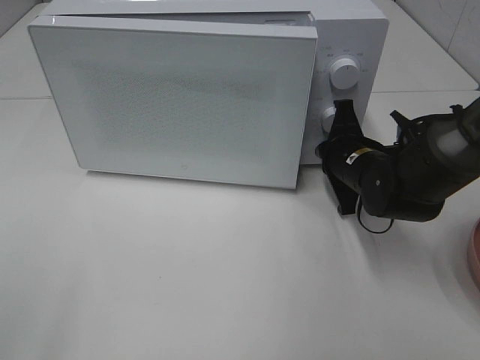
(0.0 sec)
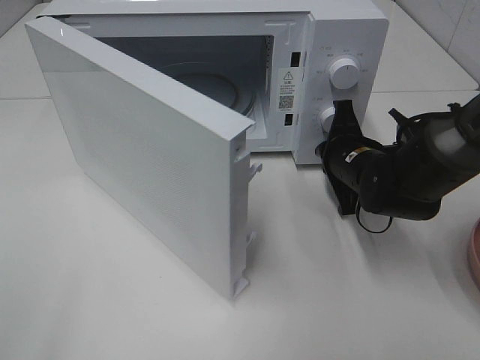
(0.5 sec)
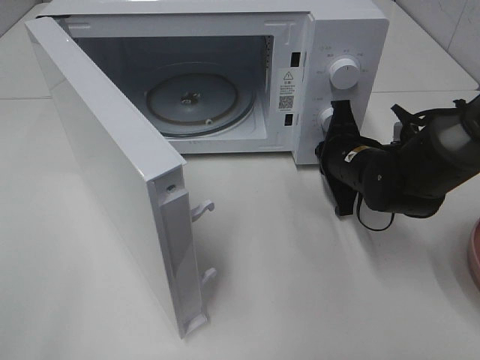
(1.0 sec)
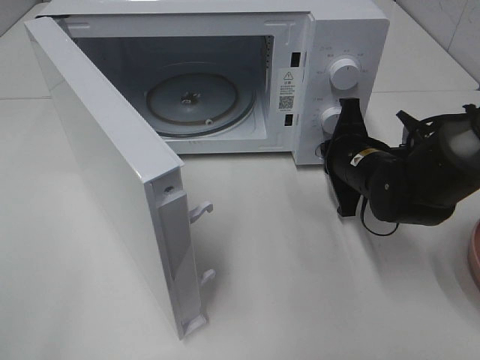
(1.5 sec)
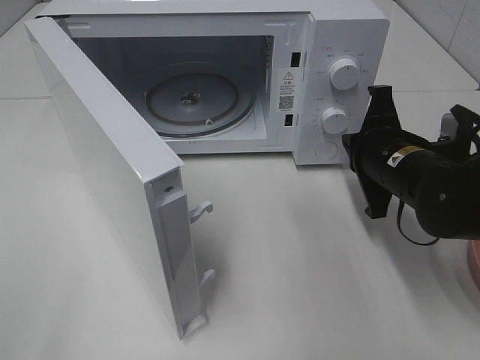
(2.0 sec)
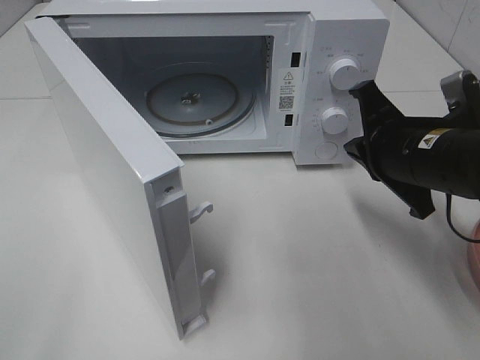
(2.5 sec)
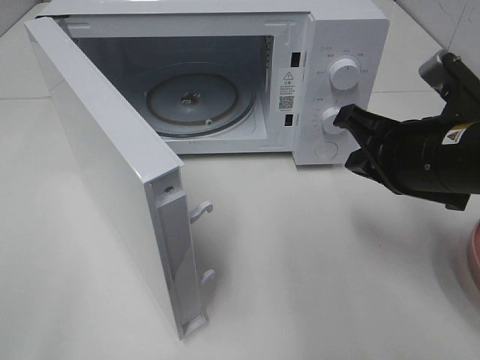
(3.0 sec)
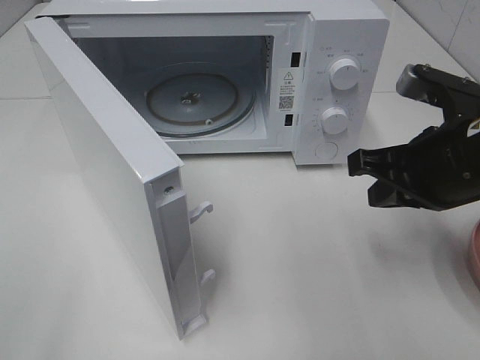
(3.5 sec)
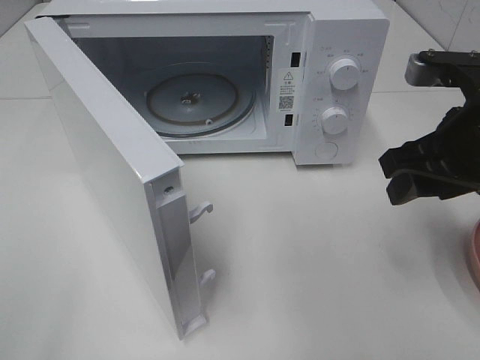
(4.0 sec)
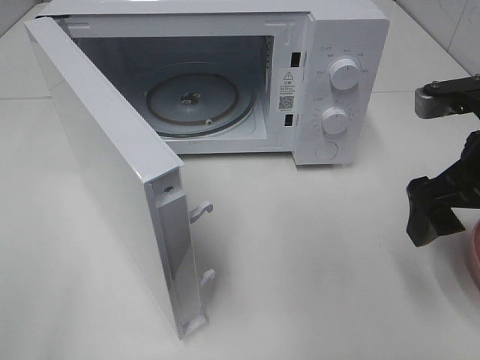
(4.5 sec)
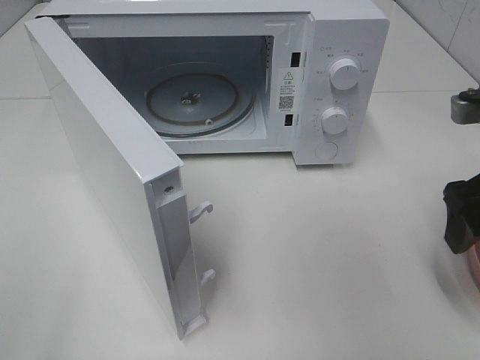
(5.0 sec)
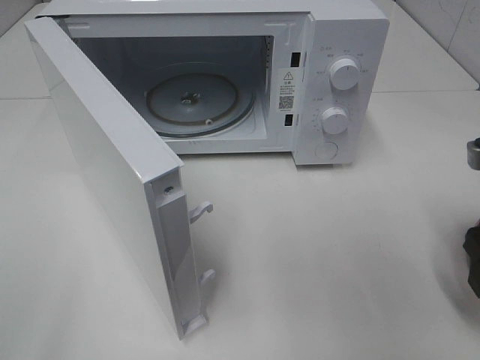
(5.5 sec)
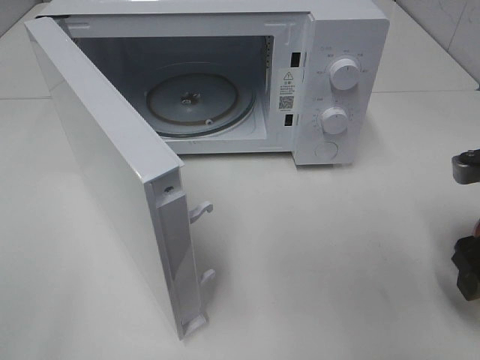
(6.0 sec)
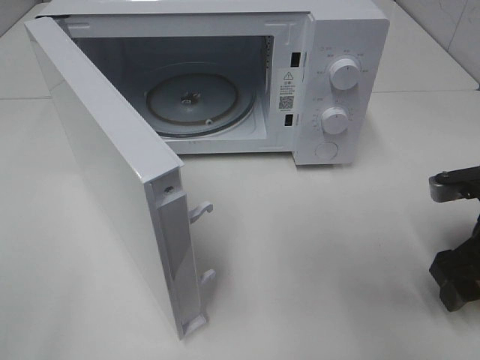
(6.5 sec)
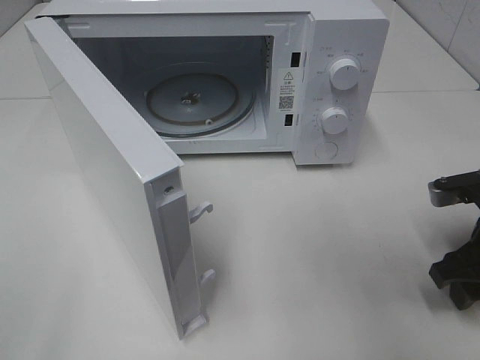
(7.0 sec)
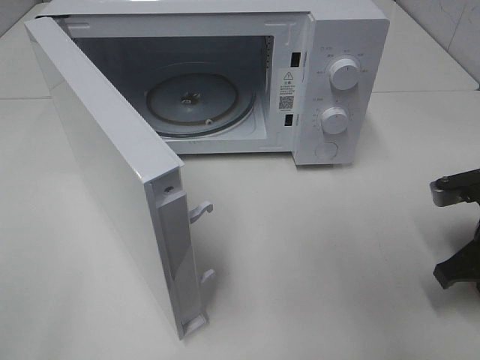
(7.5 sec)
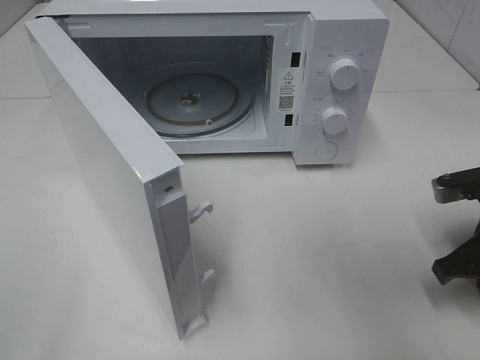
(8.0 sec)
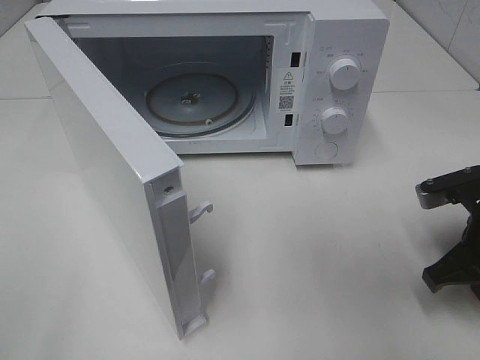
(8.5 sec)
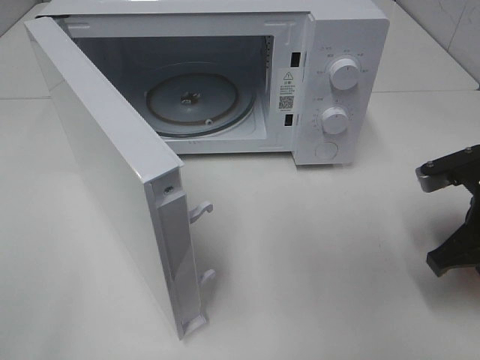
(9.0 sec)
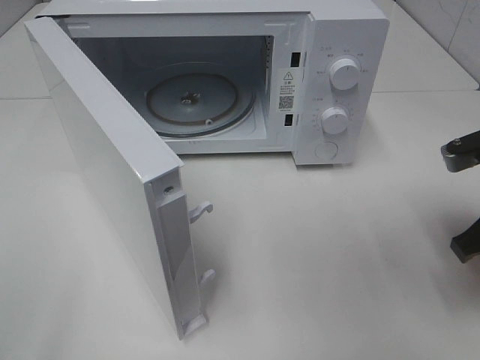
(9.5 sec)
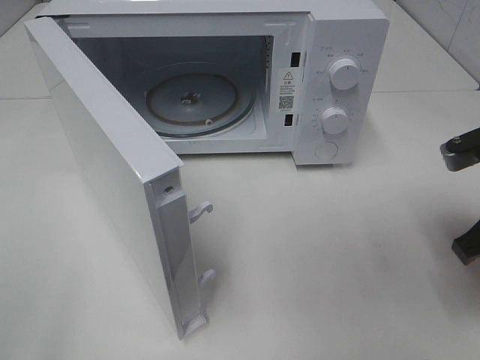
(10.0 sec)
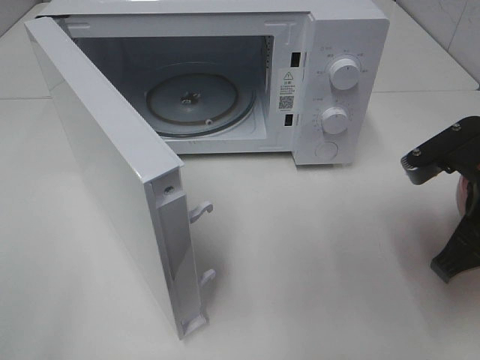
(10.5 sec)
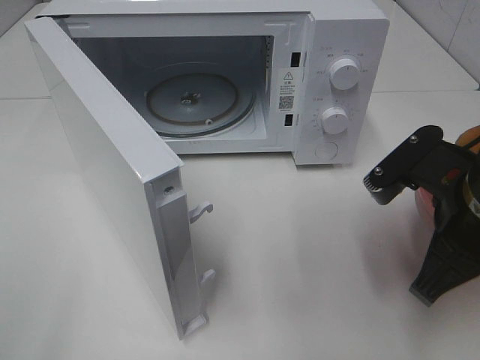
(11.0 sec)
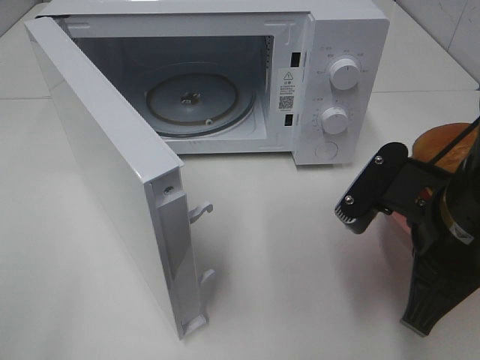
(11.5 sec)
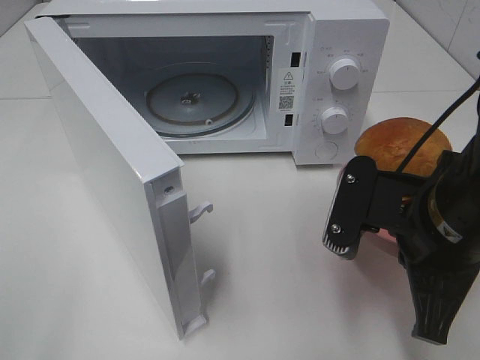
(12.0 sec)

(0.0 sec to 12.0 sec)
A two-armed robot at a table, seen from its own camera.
Task of the whole recording: Heat the burger.
Step, 2.0 sec - 7.0 sec: Right hand: grab the plate with the hamburger.
0.0 sec - 2.0 sec: The right gripper travels backward by about 5 cm.
2.0 sec - 4.0 sec: The right gripper shifts roughly 10 cm upward, and opens.
4.0 sec - 6.0 sec: The right gripper moves downward and to the right, some 10 cm.
6.0 sec - 8.0 sec: The right gripper shifts by roughly 5 cm, and closes.
8.0 sec - 10.0 sec: The right gripper shifts approximately 5 cm upward.
10.0 sec - 12.0 sec: The right gripper travels to the left by approximately 10 cm.

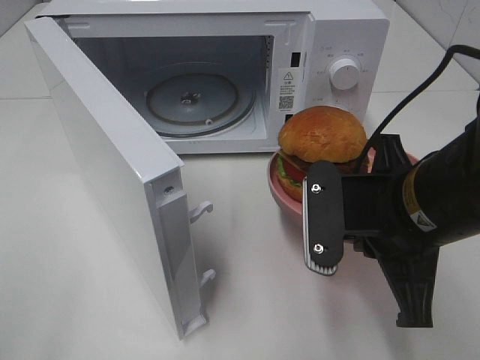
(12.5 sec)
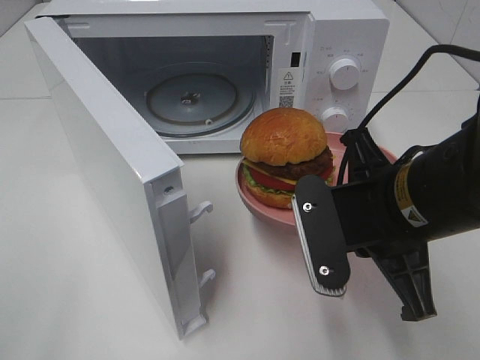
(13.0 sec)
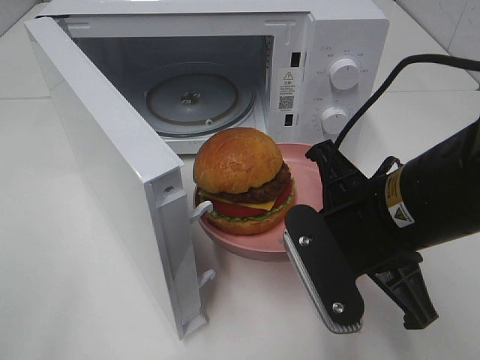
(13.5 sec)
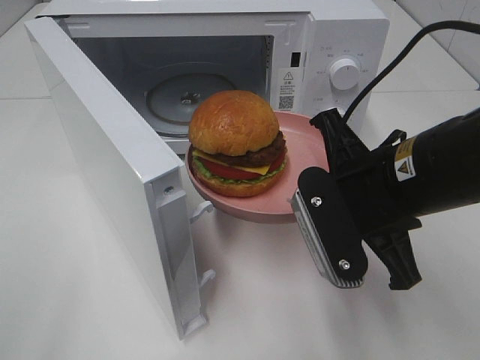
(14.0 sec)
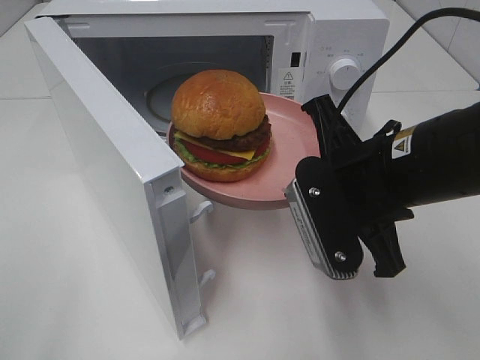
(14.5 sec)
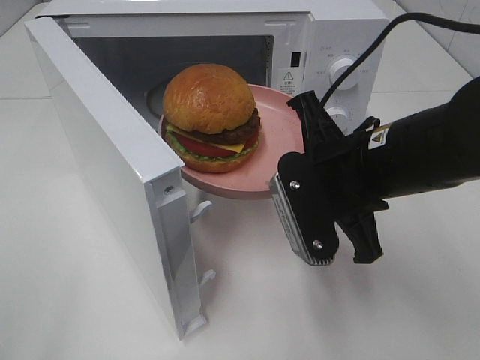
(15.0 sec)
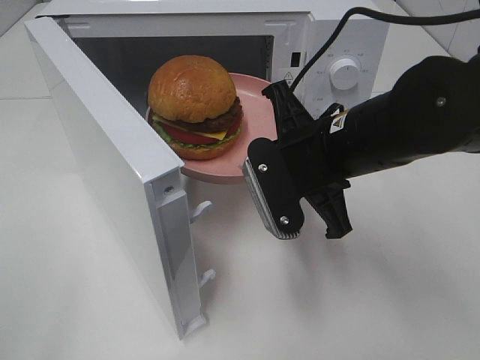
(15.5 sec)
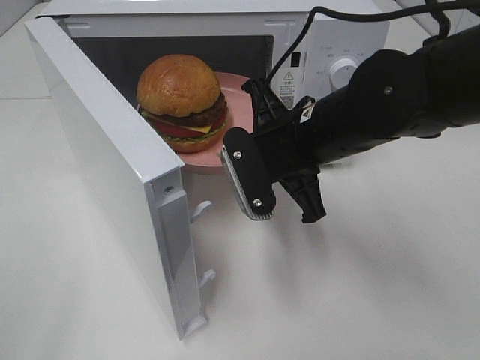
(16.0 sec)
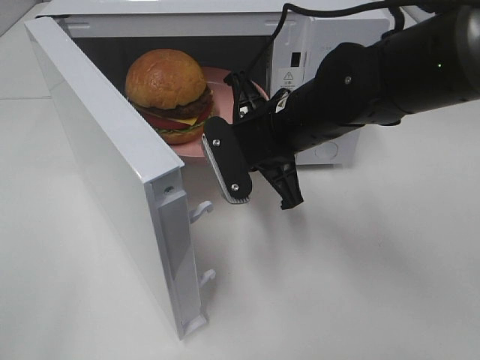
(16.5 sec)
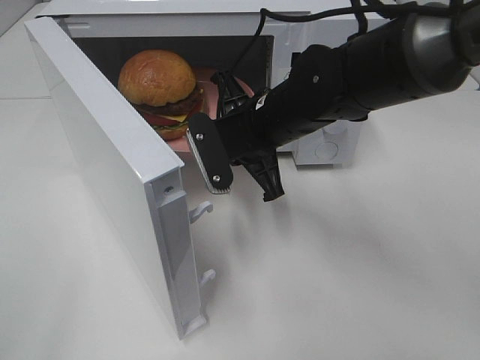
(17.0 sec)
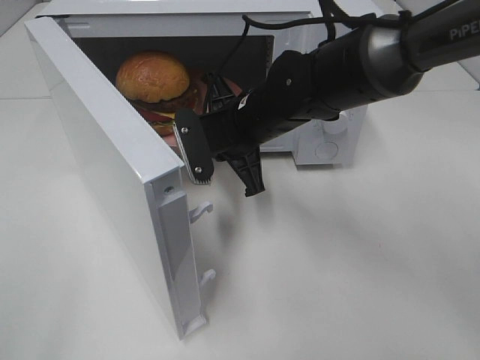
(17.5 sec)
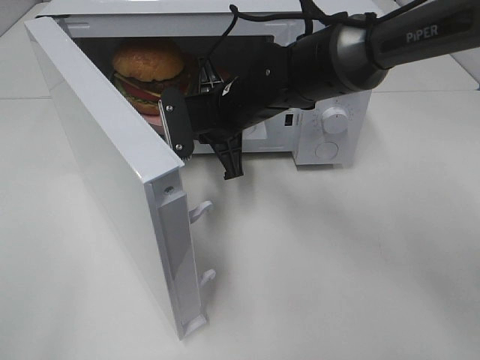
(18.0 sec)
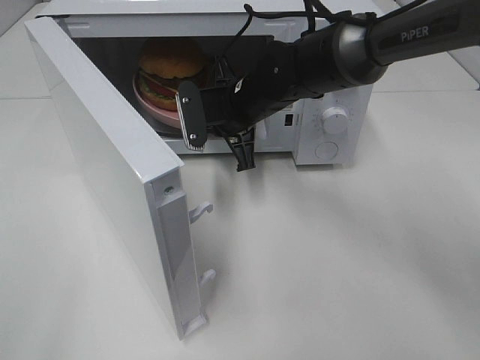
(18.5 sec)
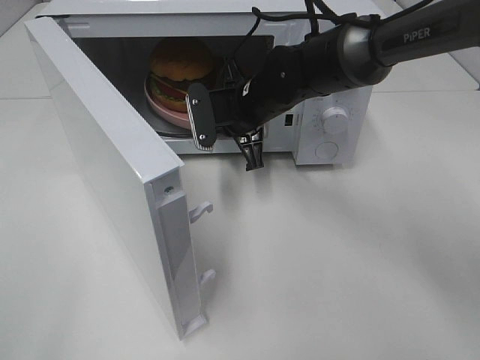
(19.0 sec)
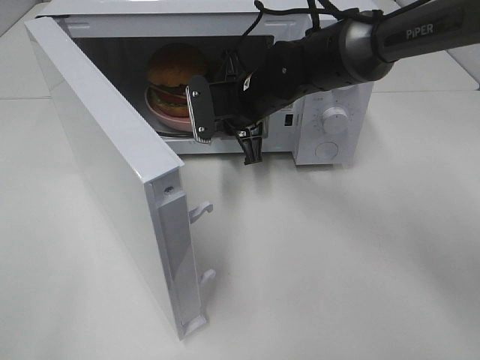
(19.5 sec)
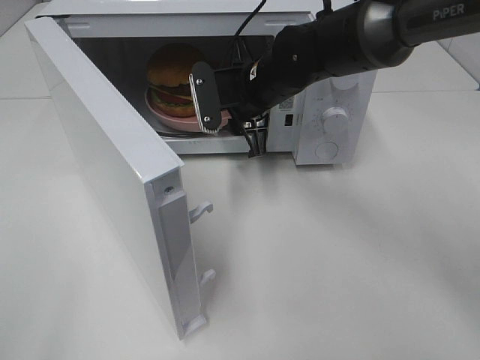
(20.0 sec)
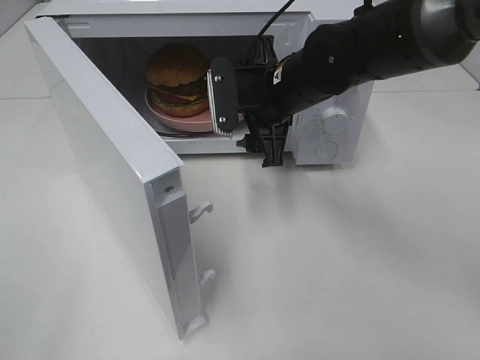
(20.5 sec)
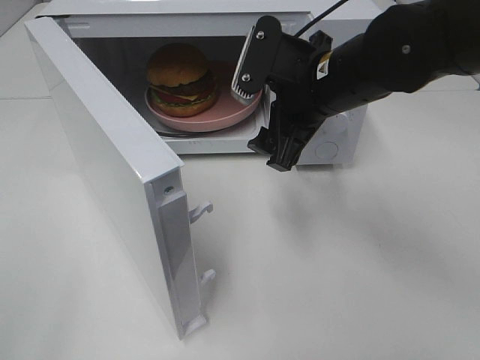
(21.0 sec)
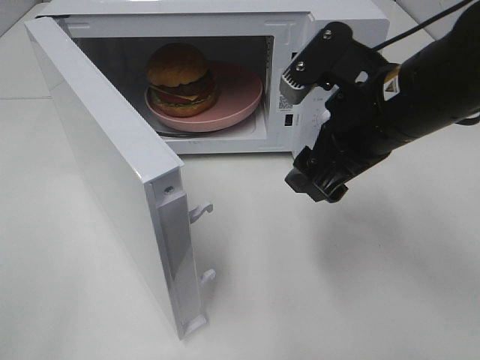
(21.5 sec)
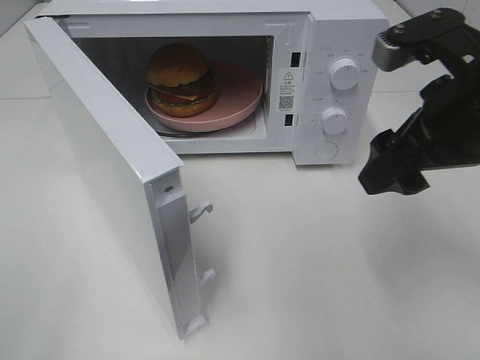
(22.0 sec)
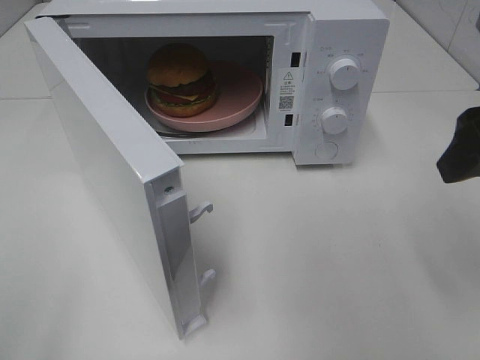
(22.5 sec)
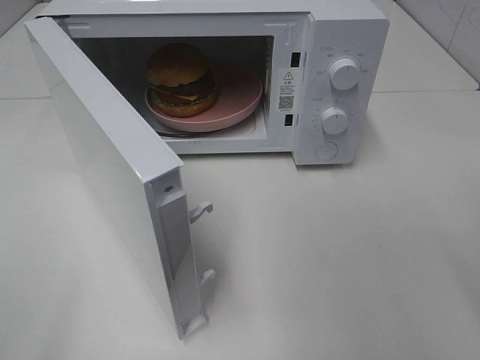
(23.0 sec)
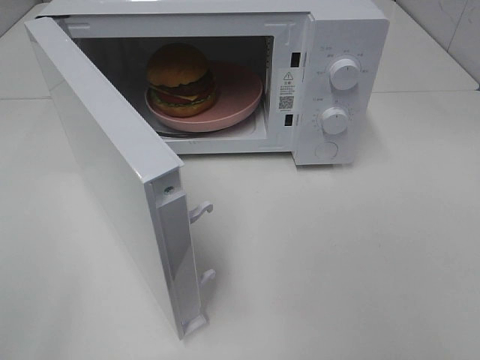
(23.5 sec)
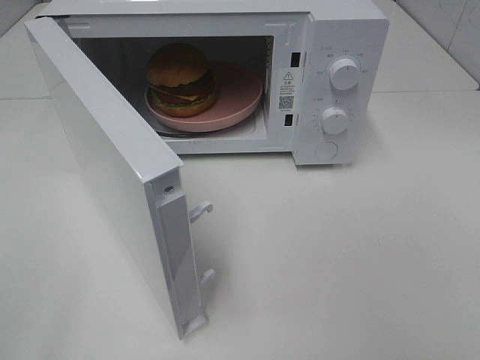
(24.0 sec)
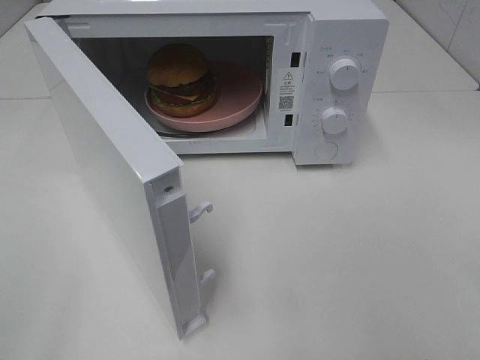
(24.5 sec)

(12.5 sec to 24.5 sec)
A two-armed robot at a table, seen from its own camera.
Task of the whole recording: Heat the burger.
Step, 12.5 sec - 19.5 sec: Right hand: place the plate in the microwave.
14.5 sec - 16.5 sec: The right gripper goes some 10 cm forward and to the left.
16.5 sec - 18.5 sec: The right gripper heads forward, covering about 10 cm.
18.5 sec - 20.5 sec: The right gripper ends up some 5 cm from where it was, and opens.
20.5 sec - 22.5 sec: The right gripper heads to the right, backward and upward, covering some 25 cm.
22.5 sec - 24.5 sec: The right gripper moves backward, approximately 20 cm.

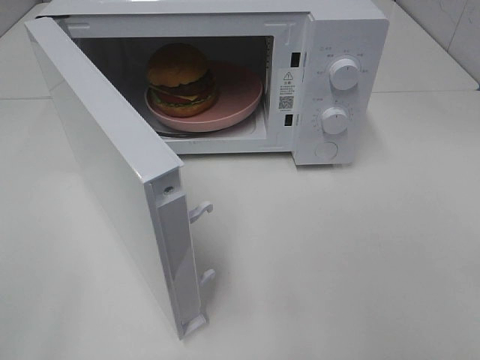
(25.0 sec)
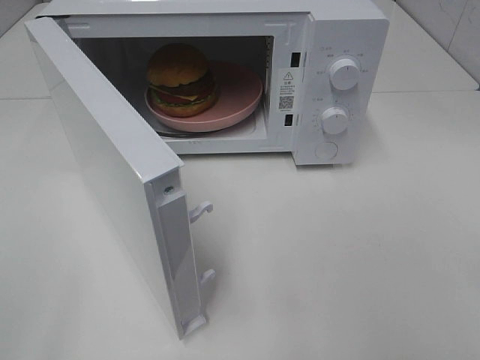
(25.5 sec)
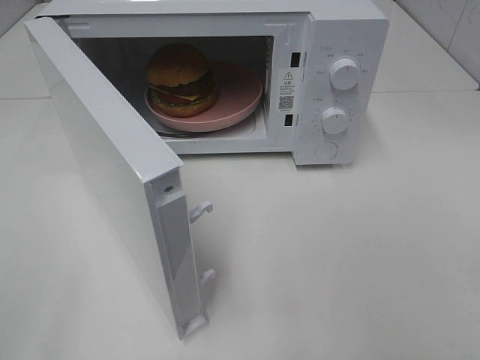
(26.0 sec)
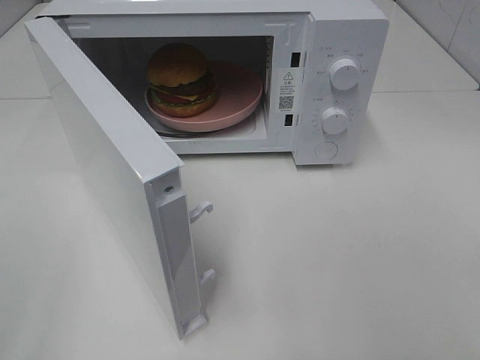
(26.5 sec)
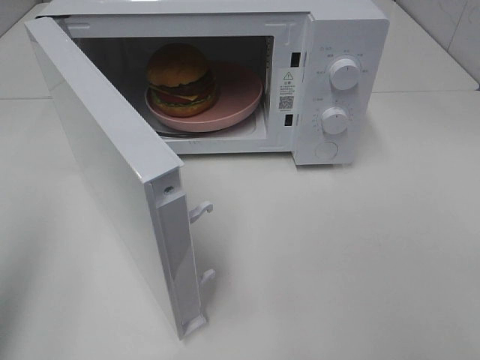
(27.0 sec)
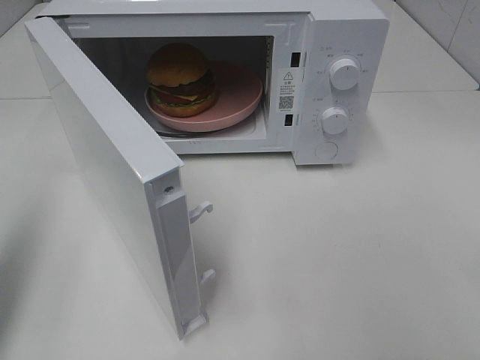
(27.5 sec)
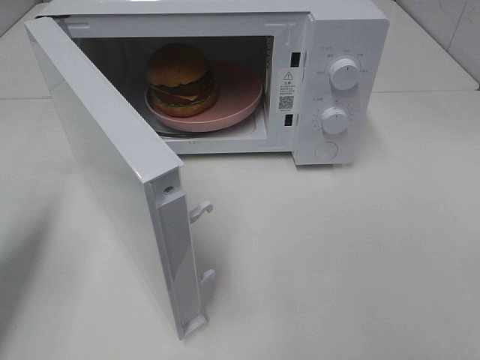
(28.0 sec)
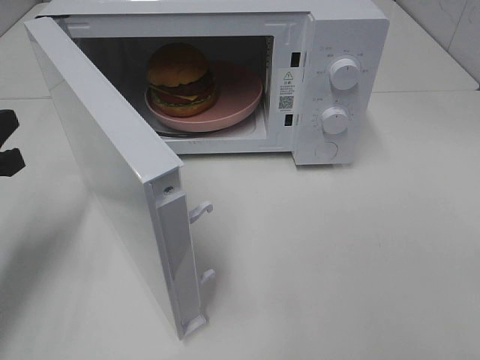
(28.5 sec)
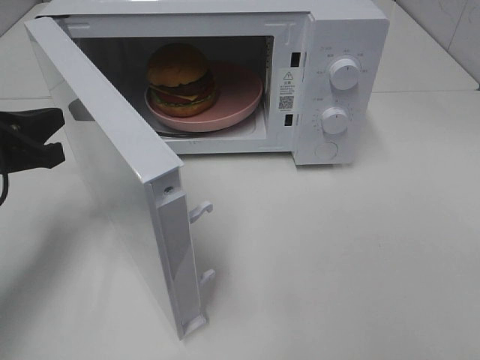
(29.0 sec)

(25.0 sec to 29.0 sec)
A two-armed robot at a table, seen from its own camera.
Task of the whole recording: Heat the burger.
25.0 sec - 27.0 sec: The left gripper is displaced forward by approximately 10 cm, and closes.
27.0 sec - 29.0 sec: The left gripper goes approximately 25 cm forward and downward.
